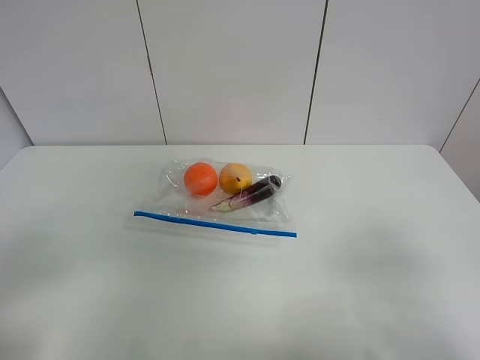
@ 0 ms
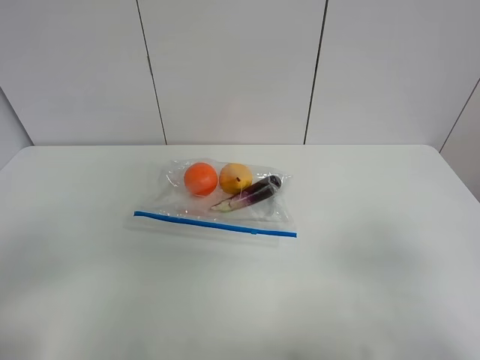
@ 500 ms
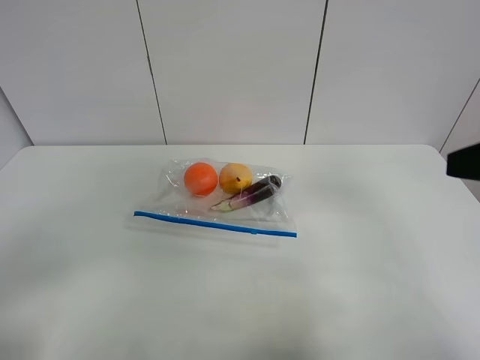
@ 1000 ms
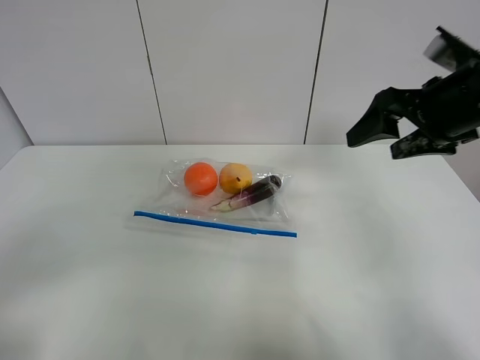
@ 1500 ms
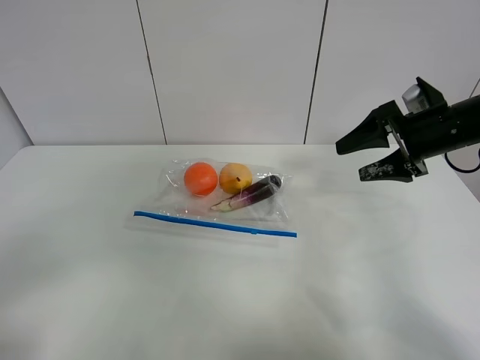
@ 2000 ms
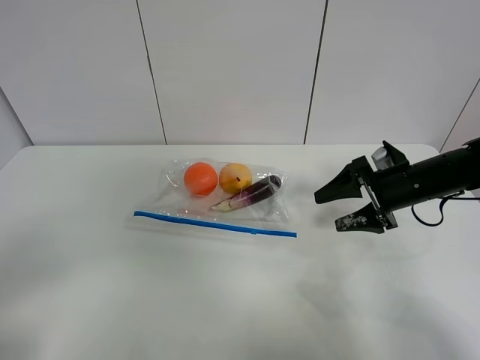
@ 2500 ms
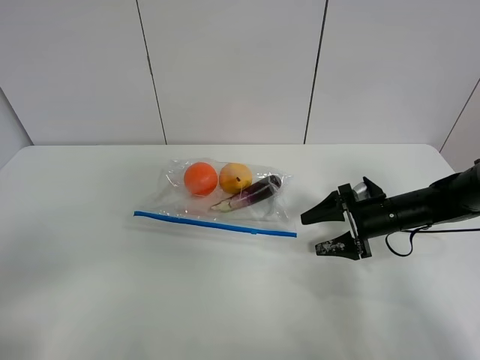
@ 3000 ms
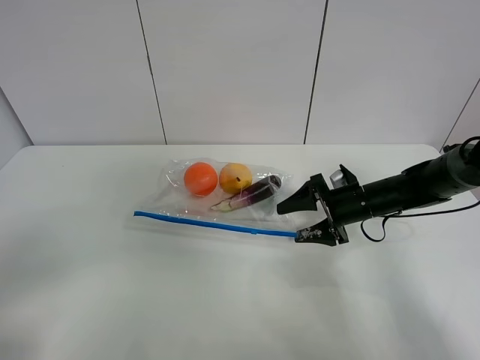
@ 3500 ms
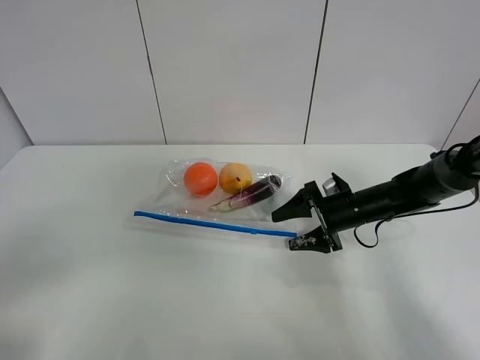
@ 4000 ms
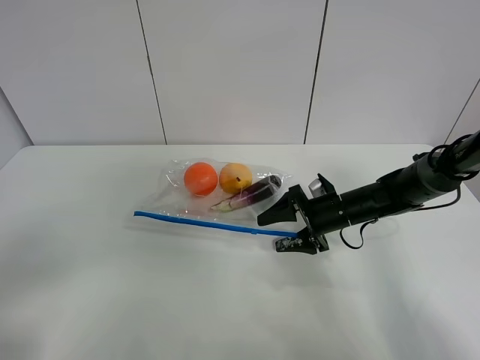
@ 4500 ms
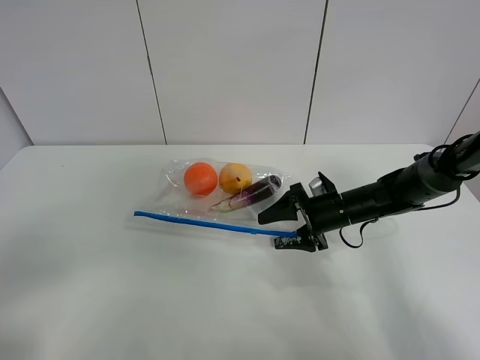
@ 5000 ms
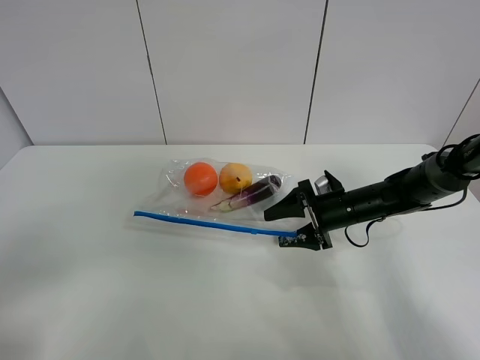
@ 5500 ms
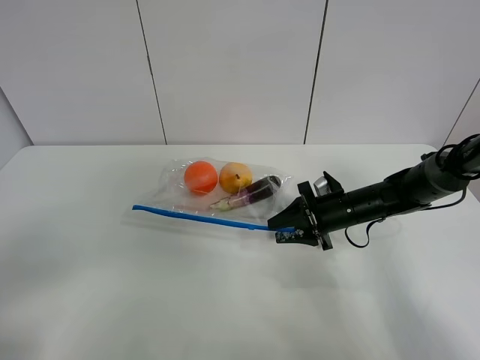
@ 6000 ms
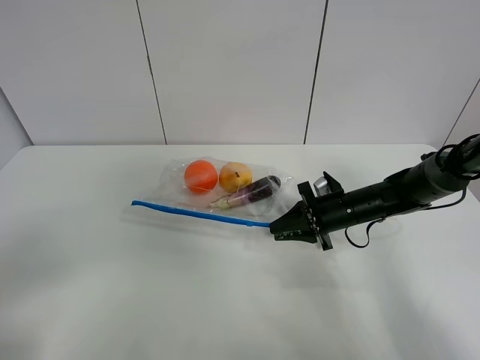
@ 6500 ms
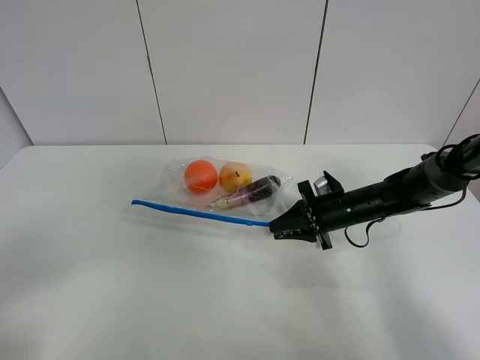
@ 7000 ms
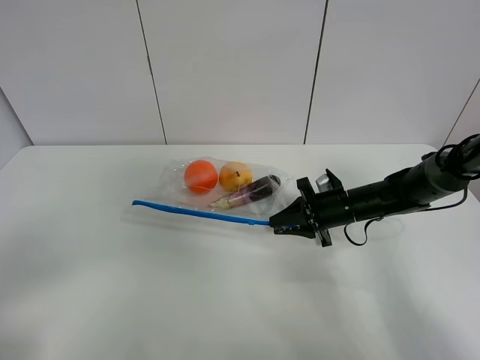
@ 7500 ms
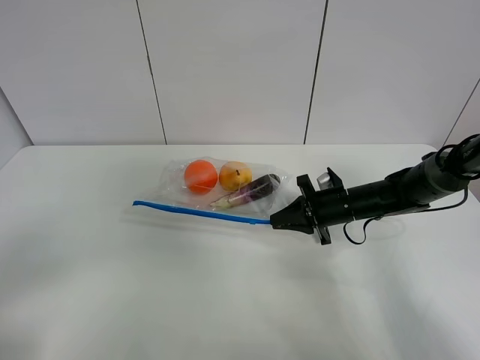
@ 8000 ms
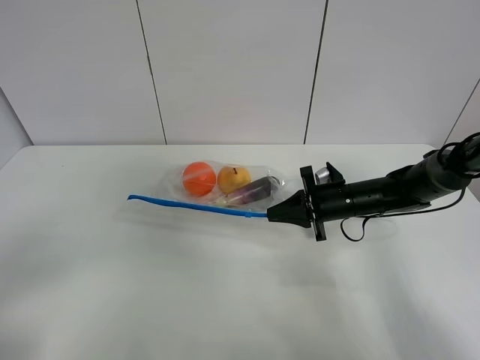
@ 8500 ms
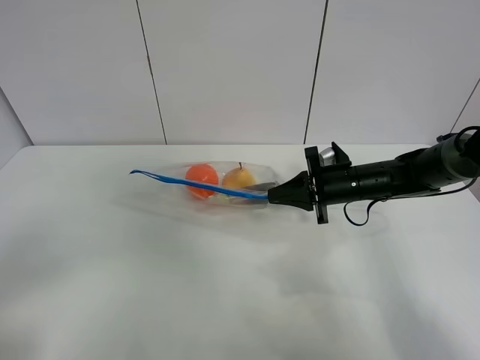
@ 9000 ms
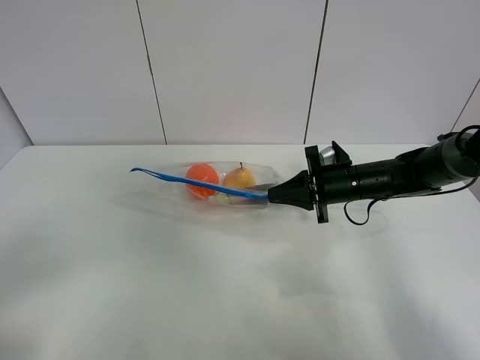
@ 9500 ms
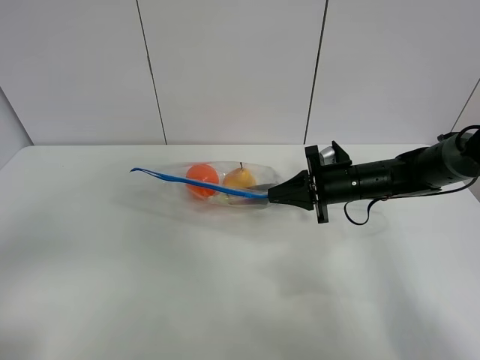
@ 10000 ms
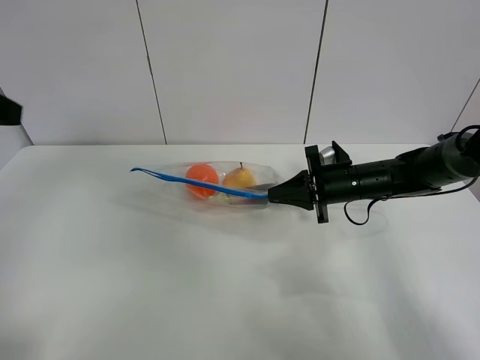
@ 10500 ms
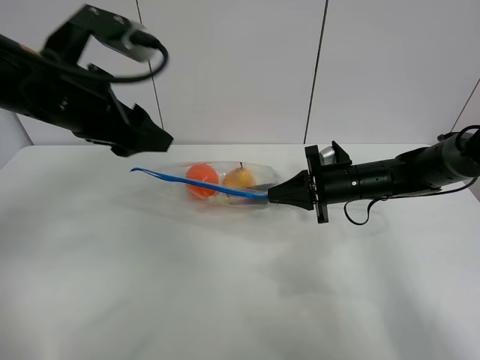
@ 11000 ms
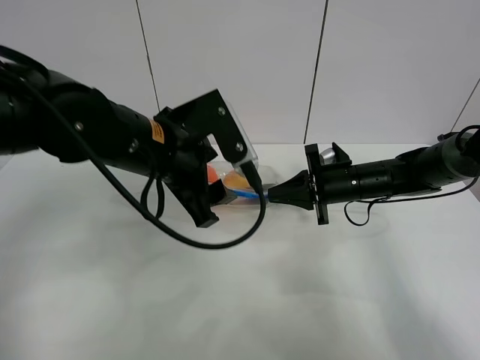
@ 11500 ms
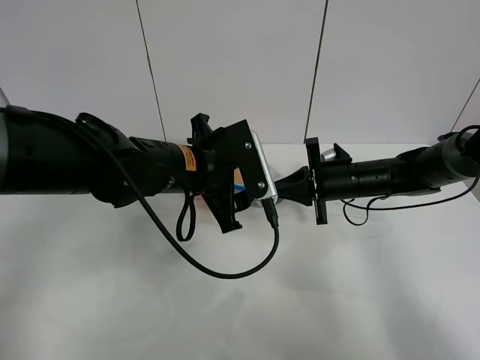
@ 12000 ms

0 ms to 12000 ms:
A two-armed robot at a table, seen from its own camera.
Step, 0 ms to 8000 ms: Grasp the fruit bag with right gripper.
Step, 8500 ms to 9500 ms: Lift the fruit bag with your right gripper.
0 ms to 2000 ms: The right gripper is displaced forward by roughly 35 cm.
2000 ms to 4000 ms: The right gripper travels downward and to the left by about 20 cm.
4000 ms to 6000 ms: The right gripper closes.
6000 ms to 8000 ms: The right gripper closes.
8000 ms to 10000 ms: The left gripper ends up about 5 cm from where it was, while the right gripper heads upward, covering approximately 5 cm.
10000 ms to 12000 ms: The left gripper is displaced forward, to the right and downward by about 40 cm.

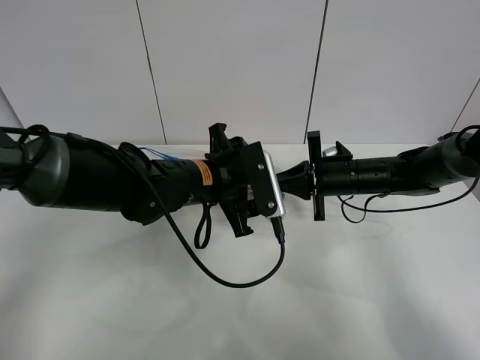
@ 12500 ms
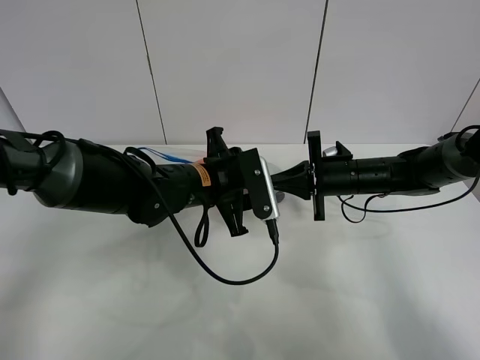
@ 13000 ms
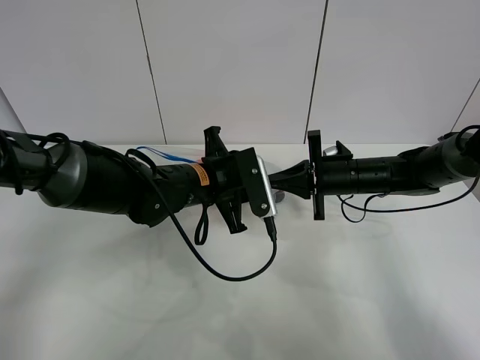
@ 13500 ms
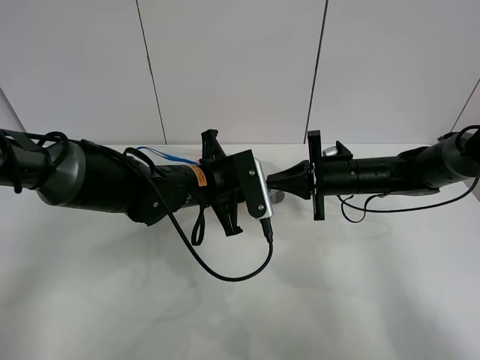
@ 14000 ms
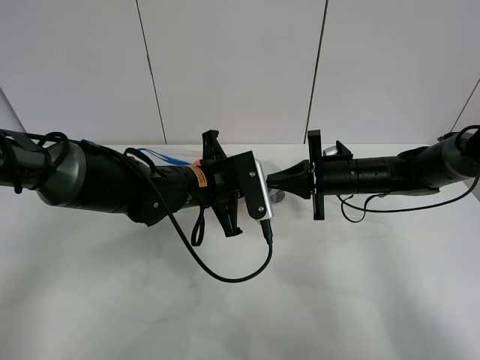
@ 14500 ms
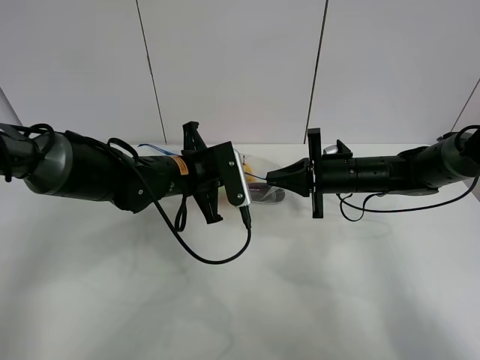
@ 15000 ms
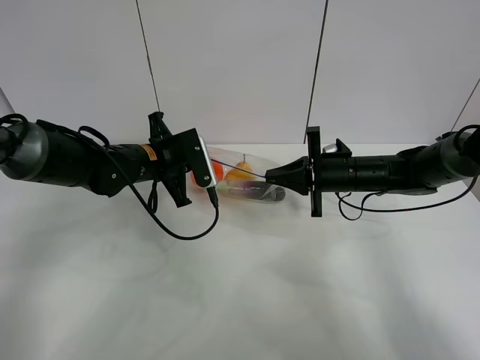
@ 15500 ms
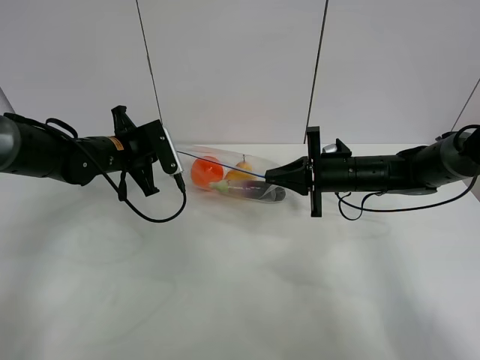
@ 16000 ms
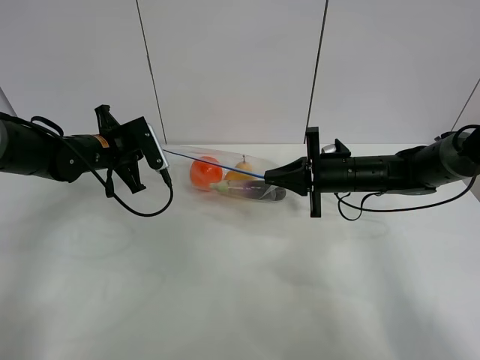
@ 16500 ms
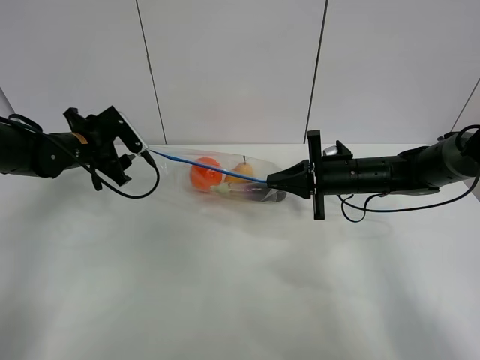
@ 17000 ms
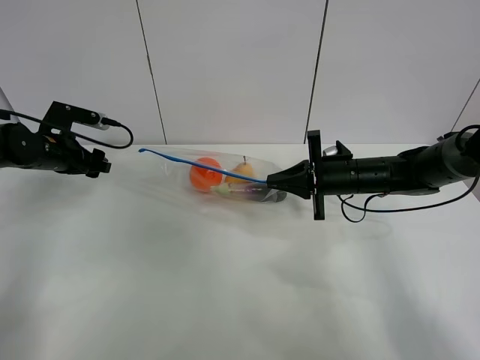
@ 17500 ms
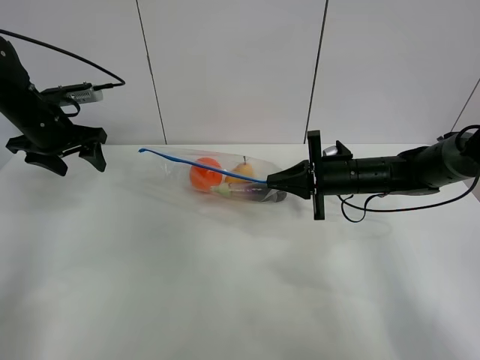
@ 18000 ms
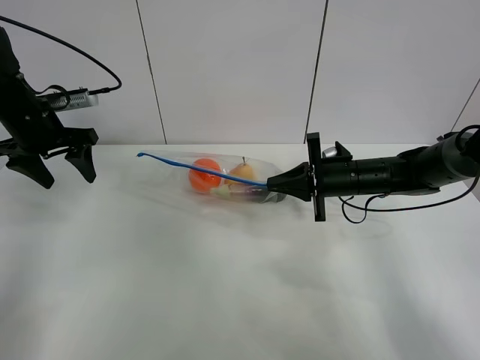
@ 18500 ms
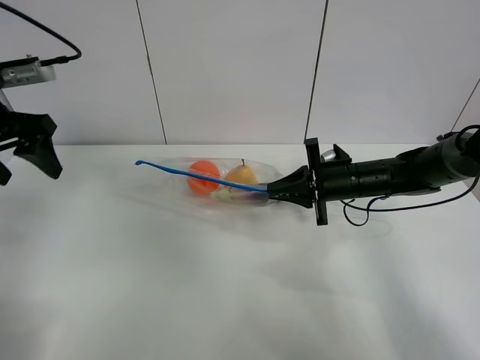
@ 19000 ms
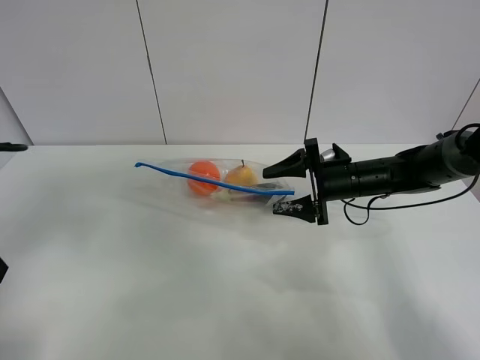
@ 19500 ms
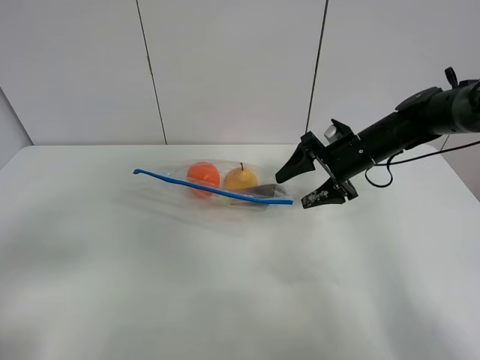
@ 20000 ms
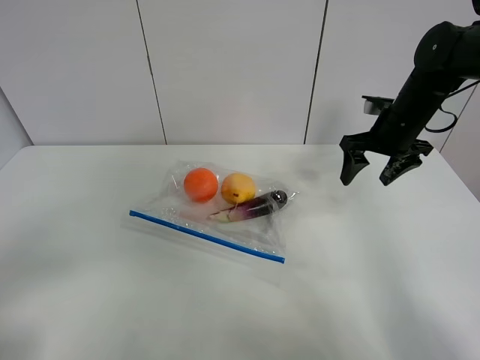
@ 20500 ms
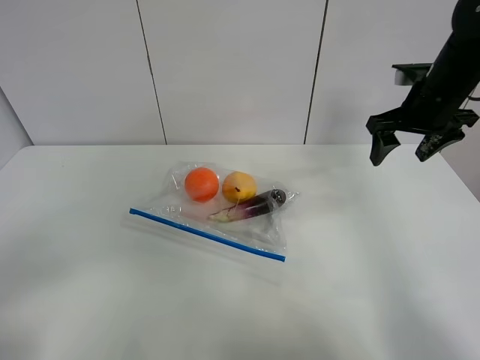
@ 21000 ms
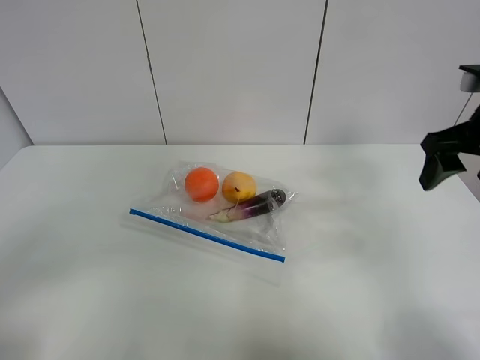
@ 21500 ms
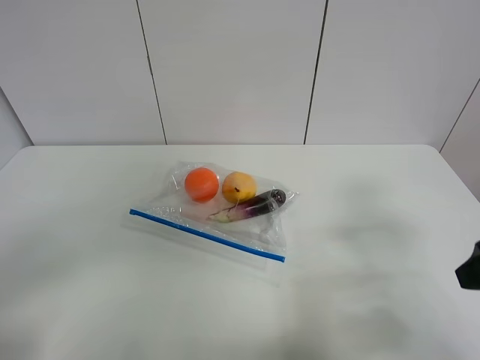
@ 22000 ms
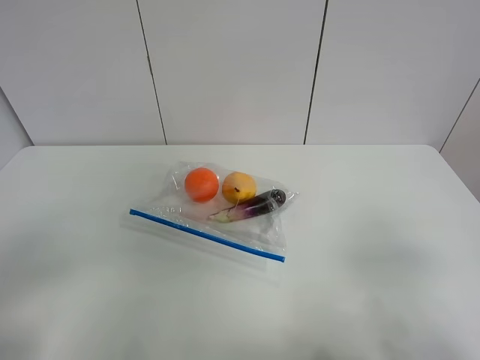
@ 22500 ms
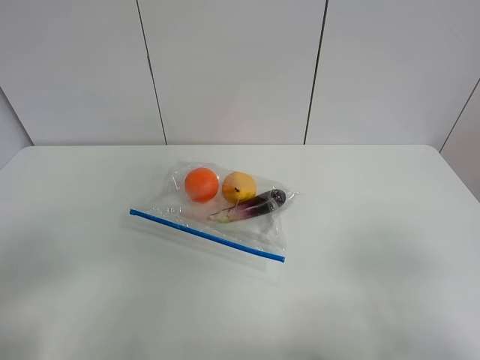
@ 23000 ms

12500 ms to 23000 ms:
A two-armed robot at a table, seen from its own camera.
Step, 12500 ms to 16500 ms: Pull the fruit bag with left gripper.
12500 ms to 14500 ms: The left gripper closes.
14500 ms to 16500 ms: The left gripper is displaced to the left and forward by about 20 cm.
16500 ms to 19000 ms: The left gripper travels upward, backward and to the left by roughly 20 cm, and opens.
19000 ms to 21000 ms: The right gripper heads upward and to the right, covering some 20 cm, and opens its fingers. The left gripper travels backward by about 30 cm.
21000 ms to 23000 ms: The right gripper is displaced backward by some 35 cm.

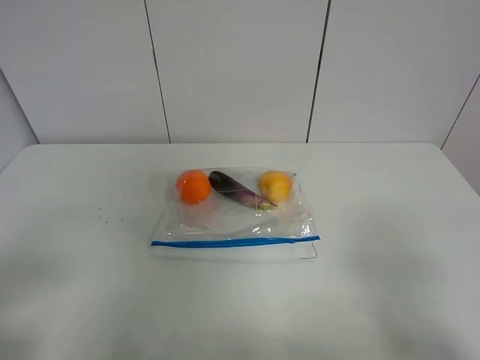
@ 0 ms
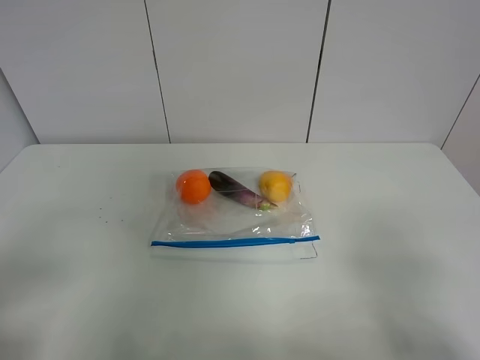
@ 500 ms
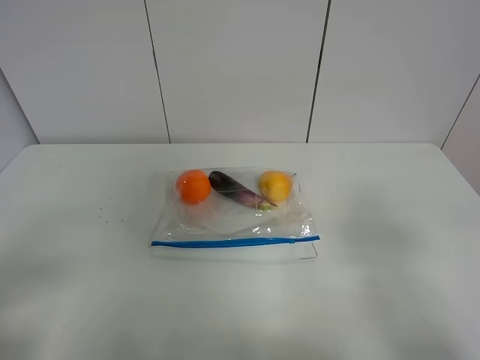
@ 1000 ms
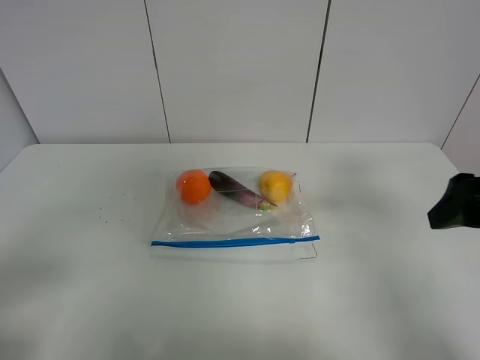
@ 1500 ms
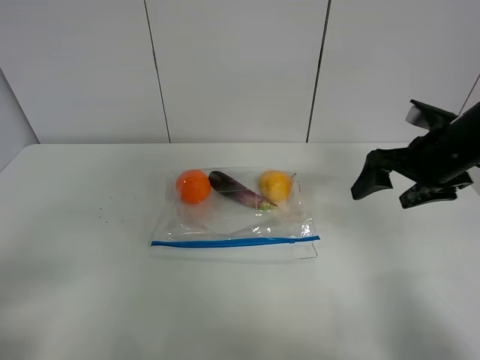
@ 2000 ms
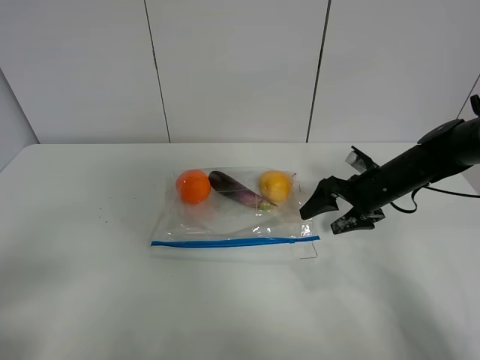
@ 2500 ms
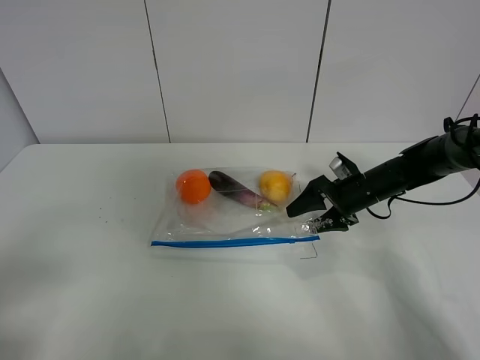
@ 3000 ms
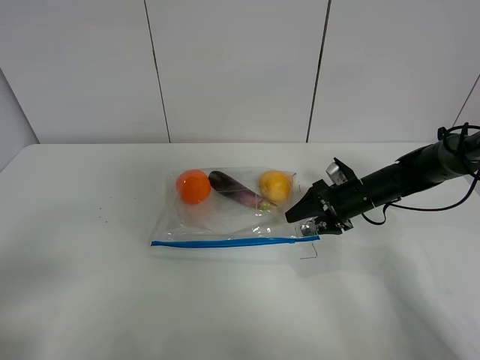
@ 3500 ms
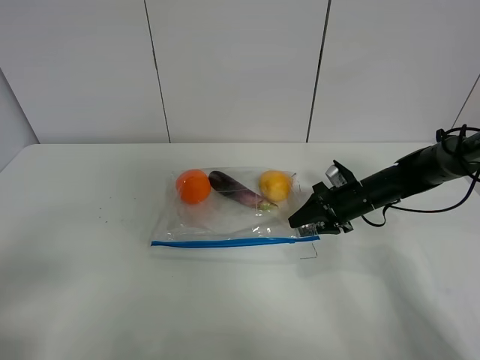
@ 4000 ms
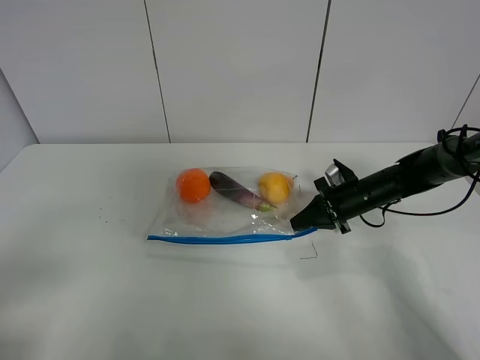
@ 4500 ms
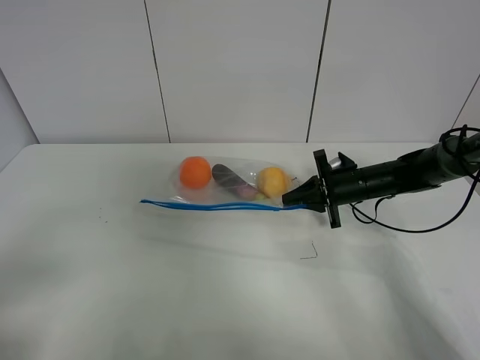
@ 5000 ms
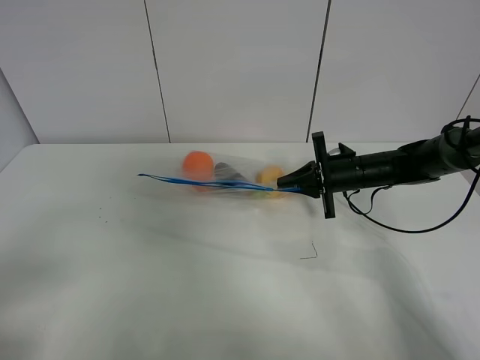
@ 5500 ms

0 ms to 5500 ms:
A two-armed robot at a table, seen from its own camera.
Step, 0 ms to 4000 ms: Grasp the fruit bag with right gripper.
0 ms to 2000 ms: The right gripper travels forward by approximately 30 cm.
2000 ms to 3500 ms: The right gripper heads downward and forward, covering approximately 15 cm.
3500 ms to 5500 ms: The right gripper closes.
